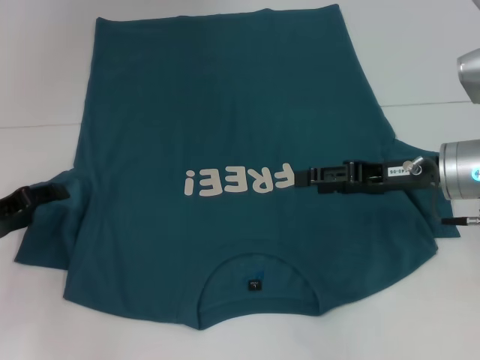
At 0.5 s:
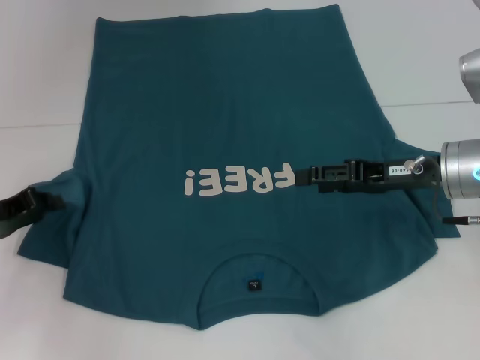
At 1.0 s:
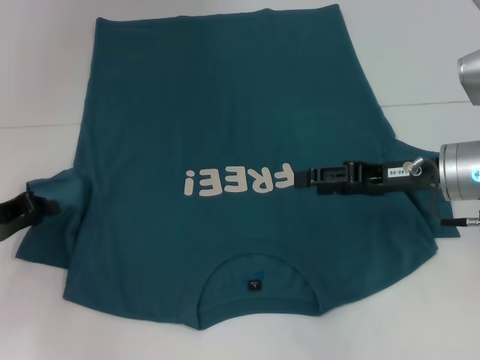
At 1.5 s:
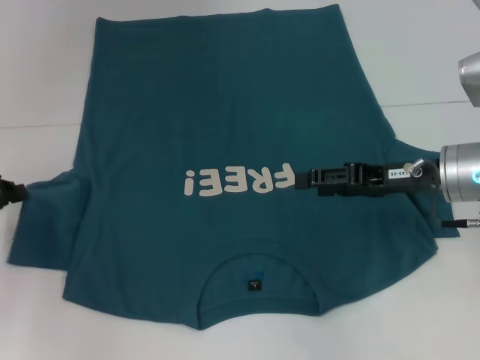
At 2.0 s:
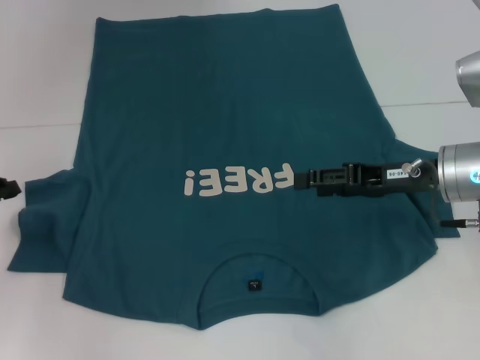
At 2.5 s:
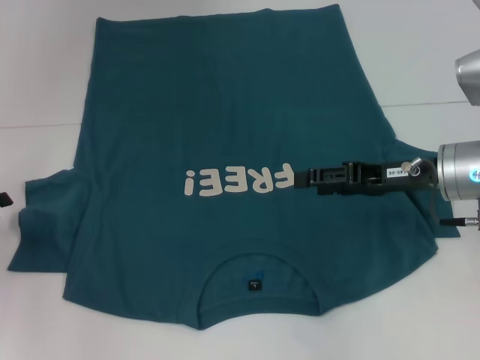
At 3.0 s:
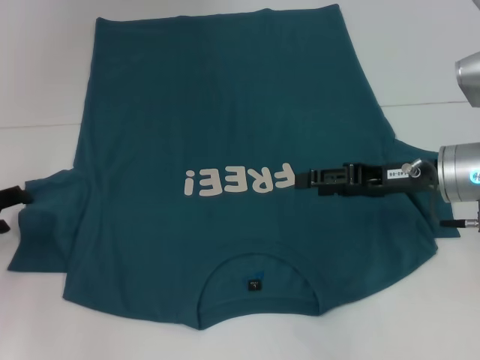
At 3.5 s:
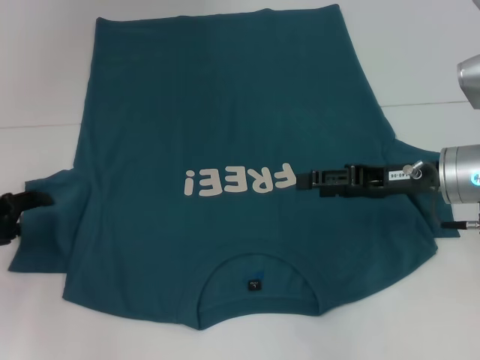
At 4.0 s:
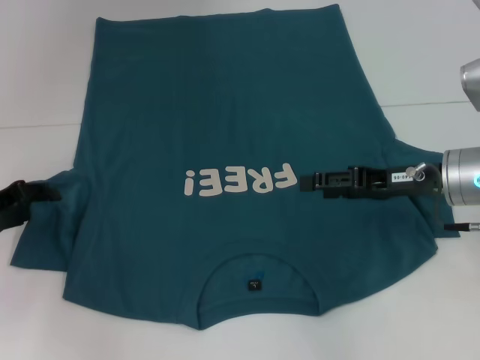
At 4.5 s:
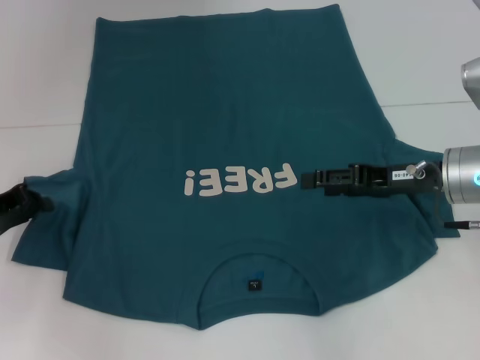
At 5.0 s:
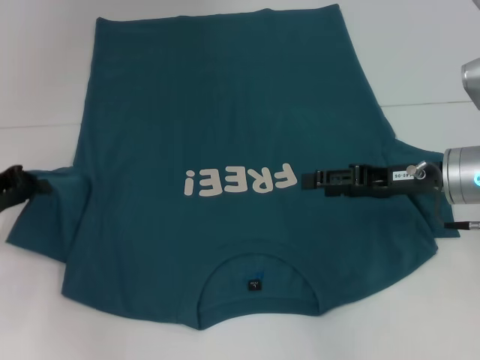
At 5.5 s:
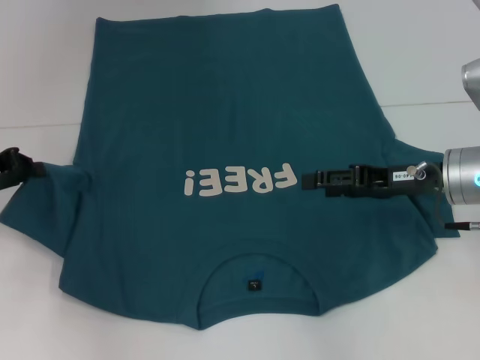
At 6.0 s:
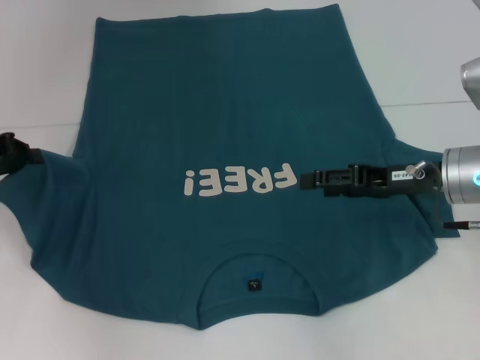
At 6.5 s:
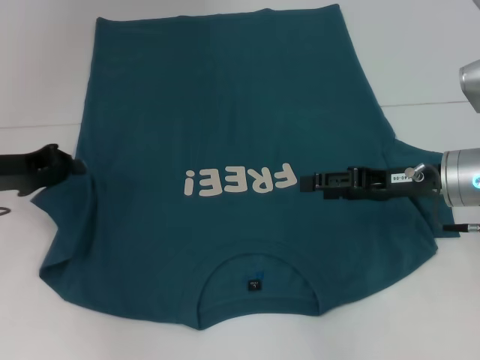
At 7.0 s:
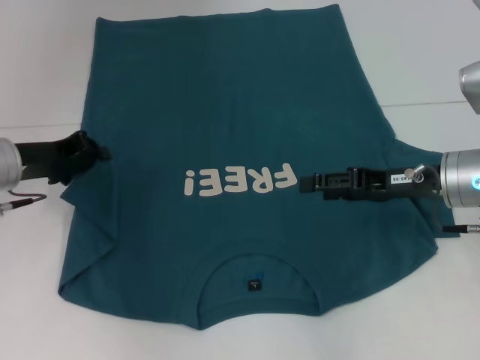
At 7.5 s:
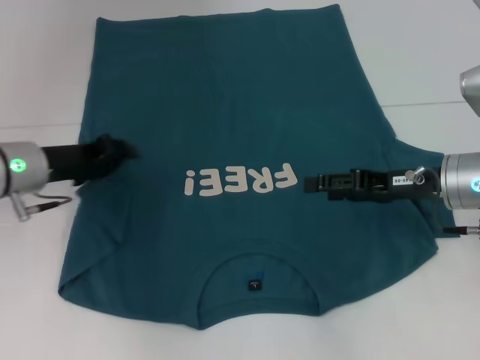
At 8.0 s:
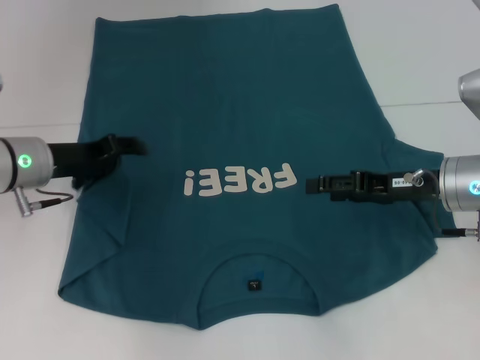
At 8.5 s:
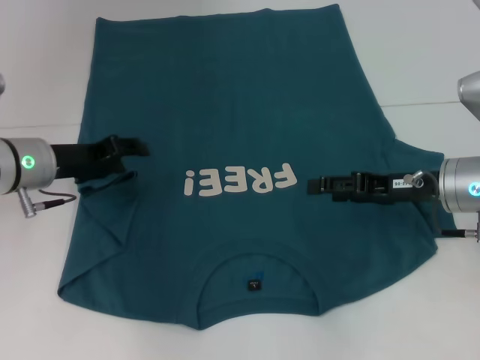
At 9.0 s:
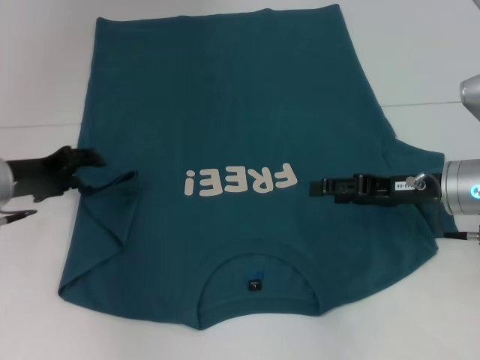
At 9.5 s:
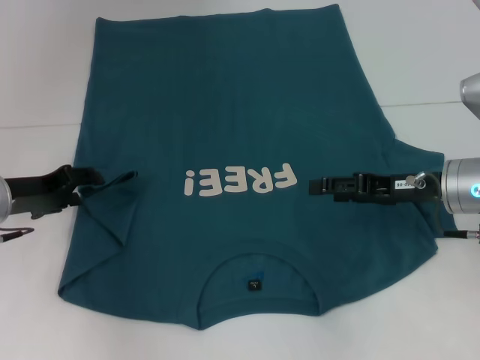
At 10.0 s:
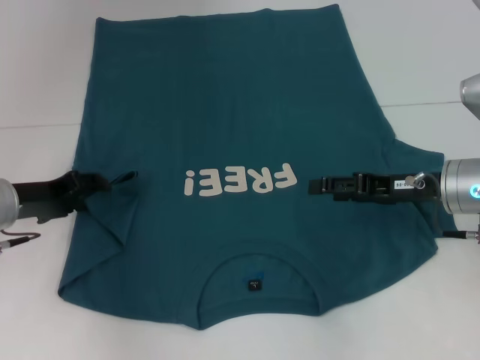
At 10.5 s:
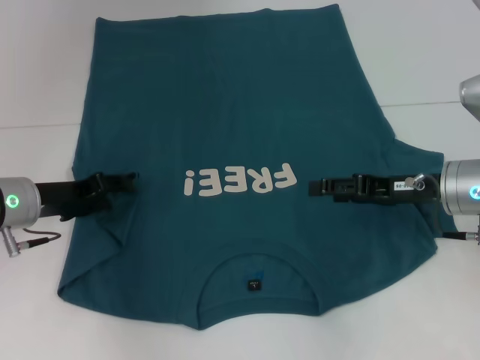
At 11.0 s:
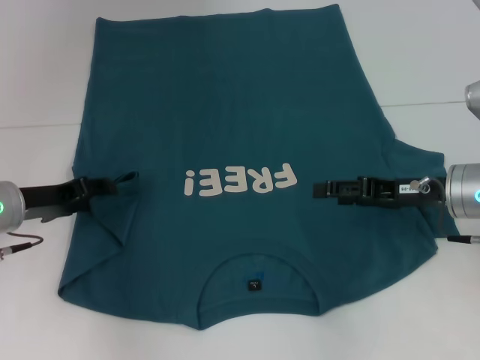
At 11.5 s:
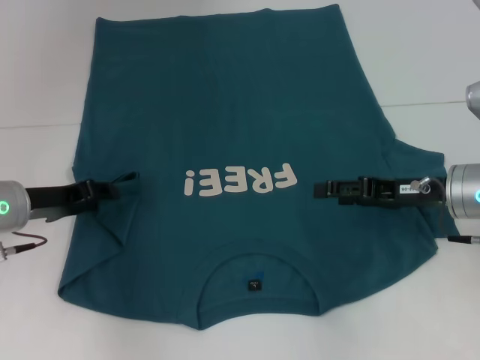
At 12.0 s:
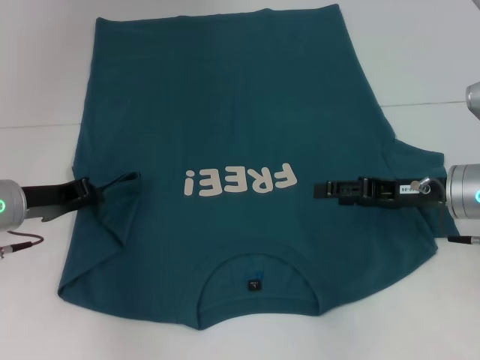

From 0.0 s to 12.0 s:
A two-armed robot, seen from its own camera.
From 0.0 s to 2.0 s: The left gripper closes up.
From 2.0 s to 4.0 s: The left gripper opens its fingers.
From 4.0 s to 6.0 s: The left gripper goes approximately 5 cm upward, and closes its fingers.
From 6.0 s to 8.0 s: The left gripper heads to the right, covering roughly 10 cm, and opens its fingers.
From 8.0 s to 10.0 s: The left gripper changes place by about 5 cm.
From 10.0 s to 12.0 s: The left gripper closes its fingers.

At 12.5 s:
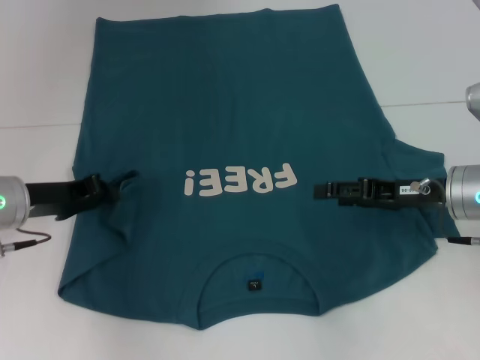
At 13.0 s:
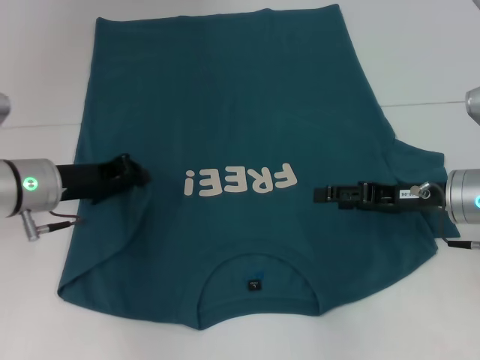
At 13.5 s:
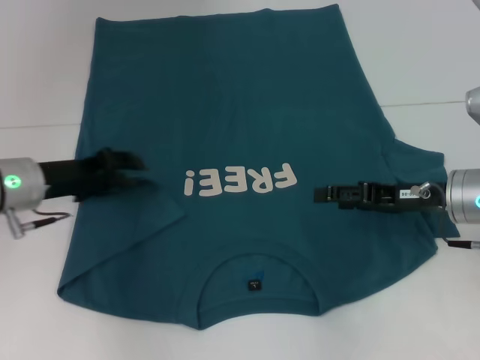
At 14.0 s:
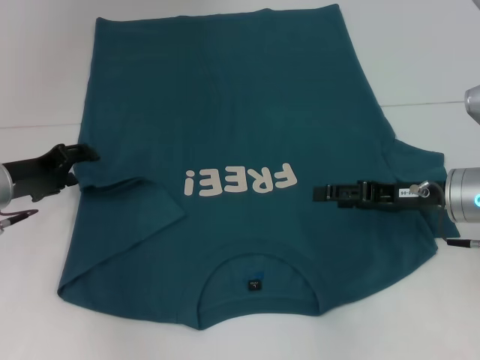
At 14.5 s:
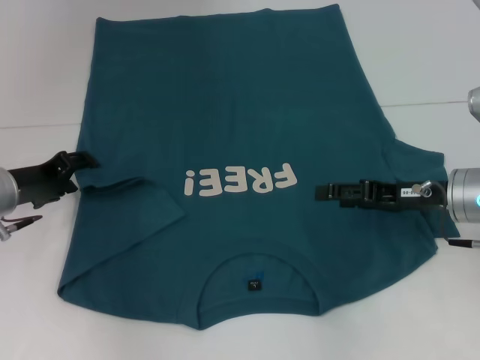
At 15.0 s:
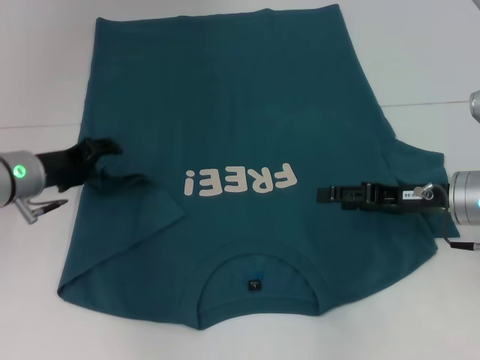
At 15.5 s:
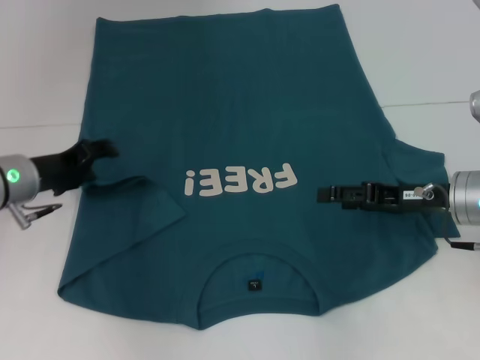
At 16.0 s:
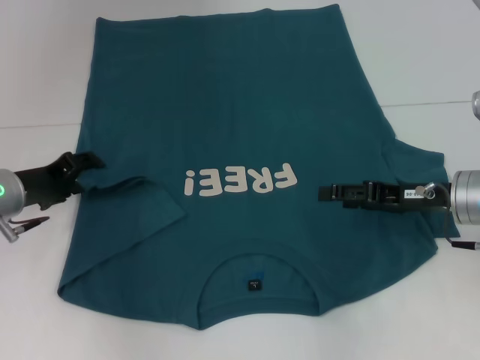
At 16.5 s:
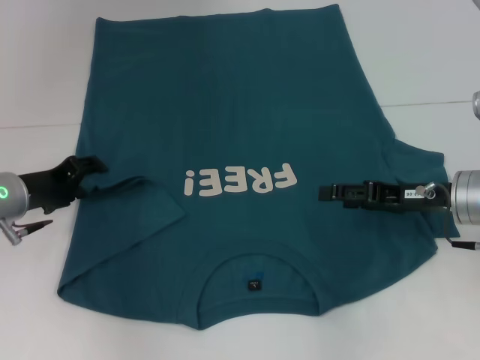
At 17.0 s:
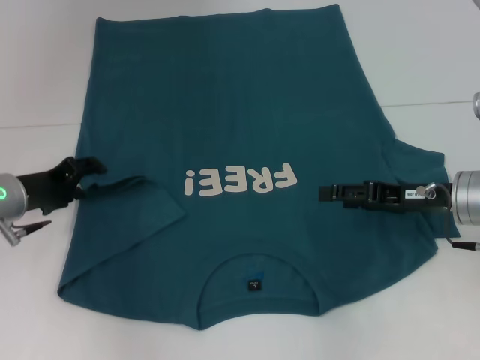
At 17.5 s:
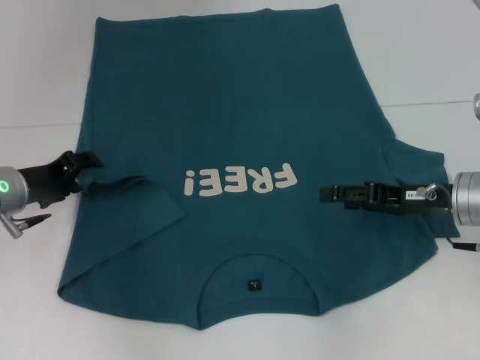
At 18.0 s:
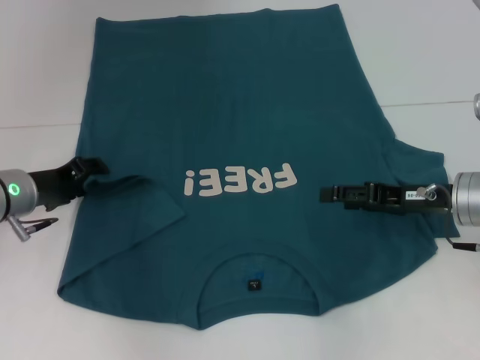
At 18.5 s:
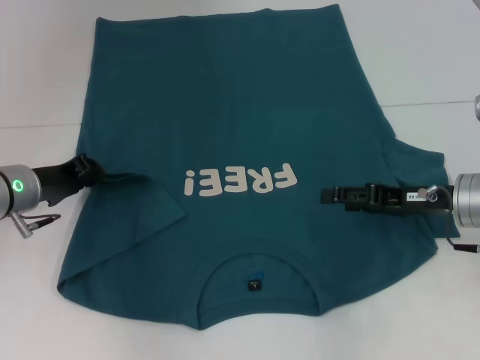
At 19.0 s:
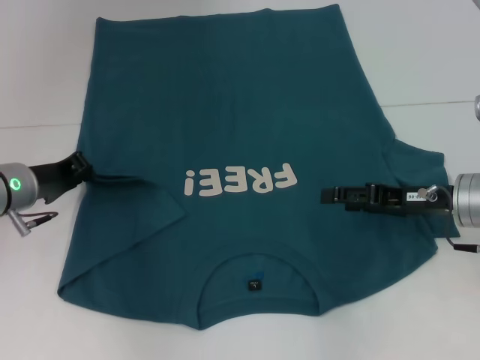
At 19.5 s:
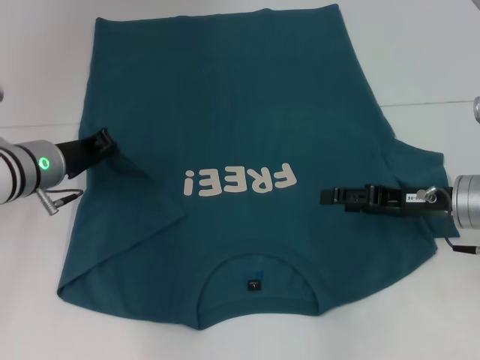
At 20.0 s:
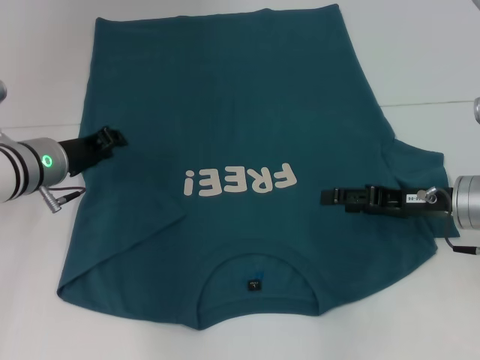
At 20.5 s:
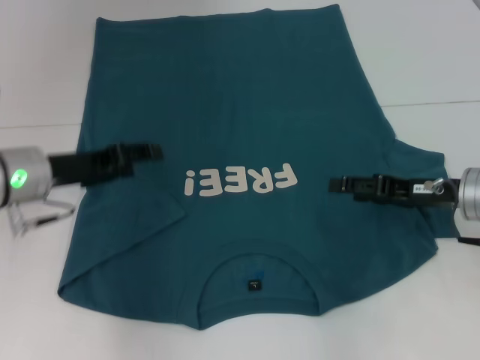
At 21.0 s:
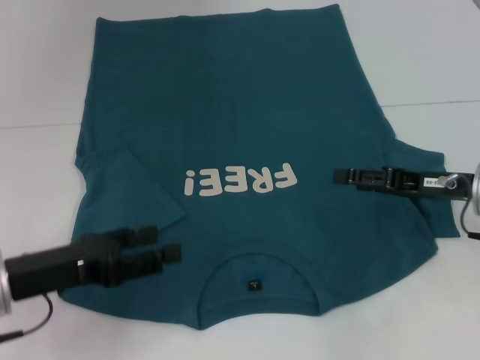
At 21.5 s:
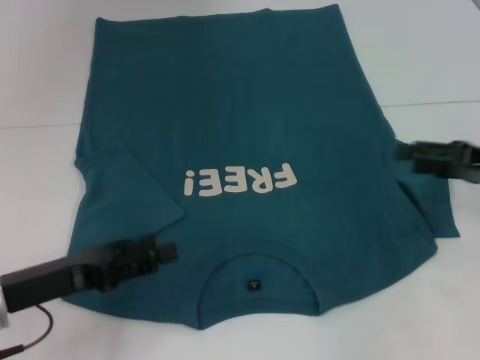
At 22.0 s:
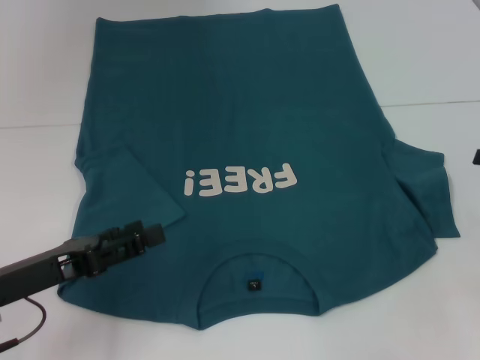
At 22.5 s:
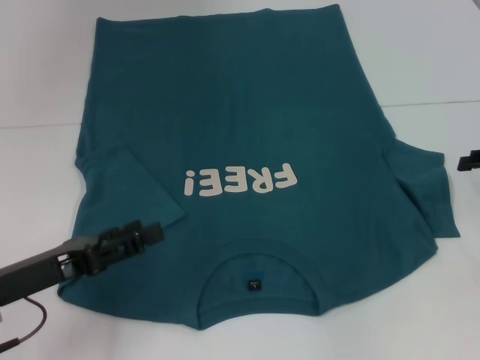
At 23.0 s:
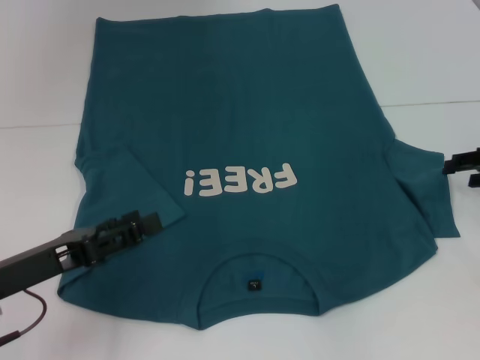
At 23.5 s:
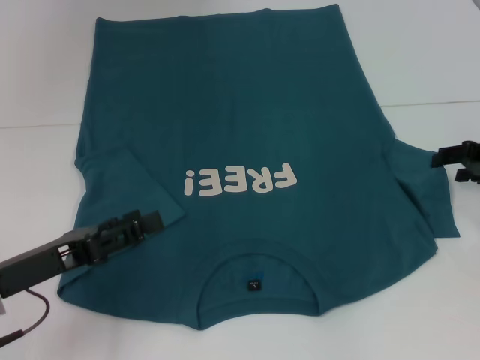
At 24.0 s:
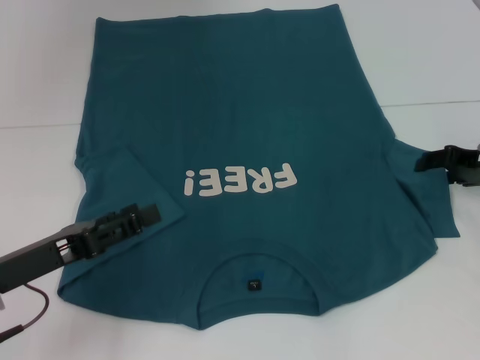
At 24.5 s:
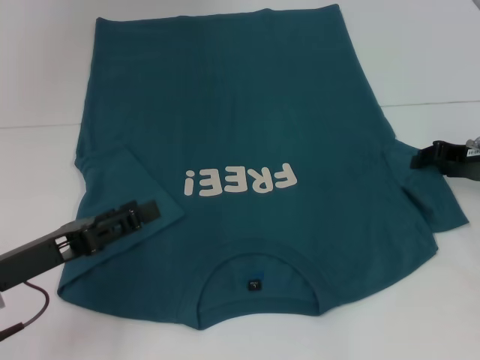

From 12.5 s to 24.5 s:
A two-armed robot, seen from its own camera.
Step, from 12.5 s to 20.0 s: Fold the bottom left sleeve with your left hand.
From 12.5 s to 14.5 s: The left gripper opens up.
From 14.5 s to 16.5 s: The grippers stay close to where they were, moving slightly.
From 16.5 s to 18.5 s: The left gripper closes.
From 18.5 s to 20.5 s: The left gripper moves about 5 cm, and closes and opens again.
From 20.5 s to 22.5 s: The right gripper shifts roughly 10 cm to the right. The left gripper travels backward by about 10 cm.
From 22.5 s to 24.5 s: The right gripper shifts roughly 5 cm to the left.

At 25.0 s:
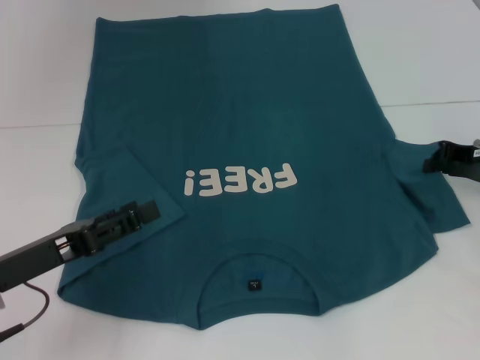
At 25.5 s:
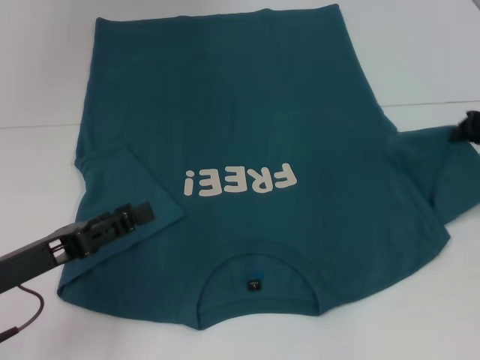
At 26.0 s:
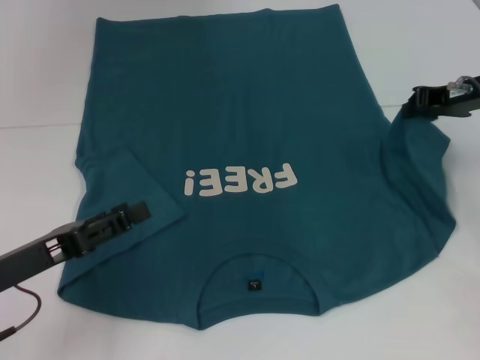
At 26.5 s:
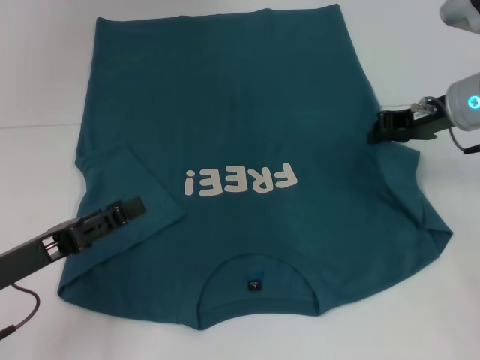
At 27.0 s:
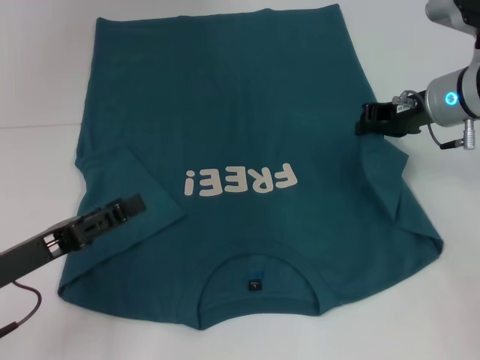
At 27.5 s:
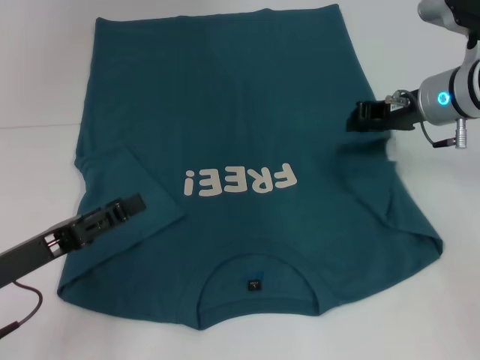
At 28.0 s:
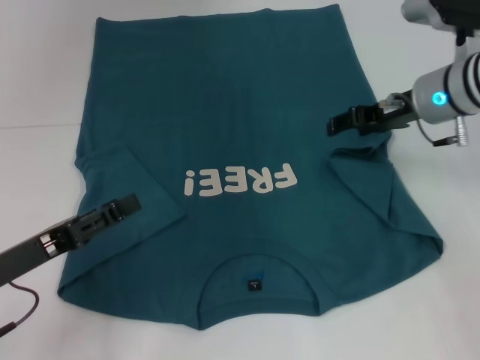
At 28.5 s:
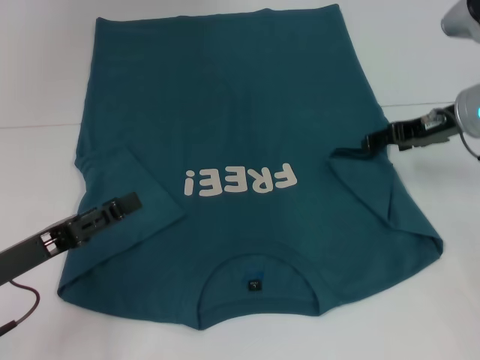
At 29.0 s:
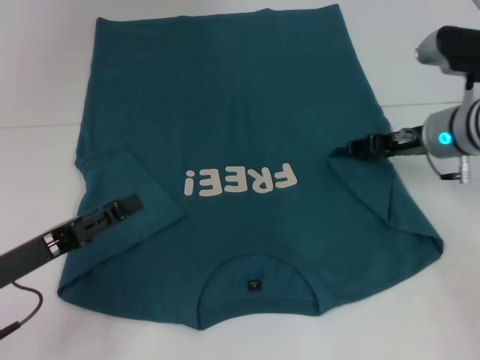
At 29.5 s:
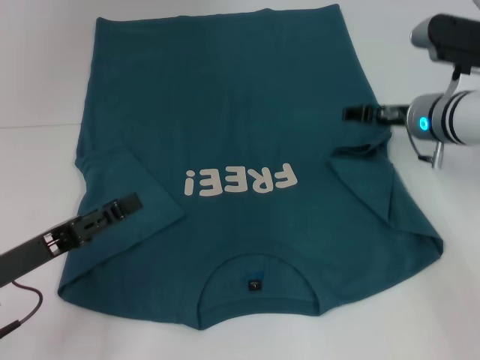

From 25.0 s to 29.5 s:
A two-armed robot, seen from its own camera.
From 25.0 s to 27.0 s: The right gripper moves to the left, roughly 10 cm.
From 27.0 s to 29.5 s: The right gripper opens.
